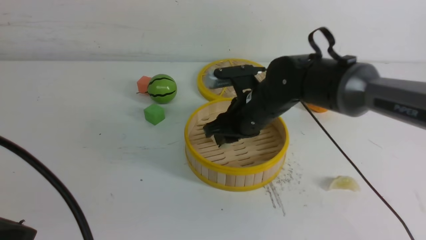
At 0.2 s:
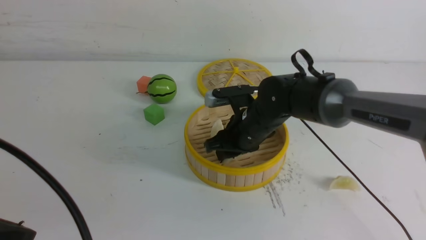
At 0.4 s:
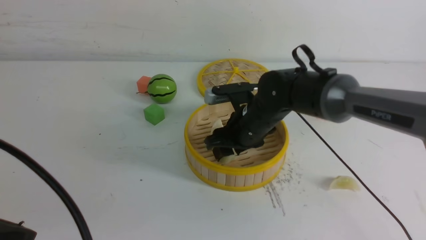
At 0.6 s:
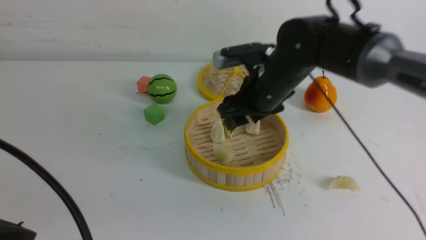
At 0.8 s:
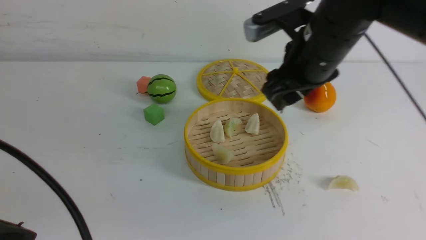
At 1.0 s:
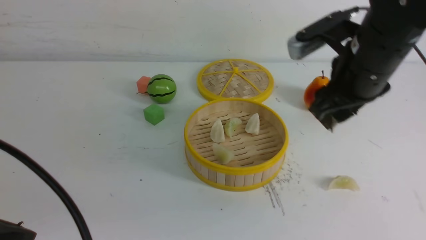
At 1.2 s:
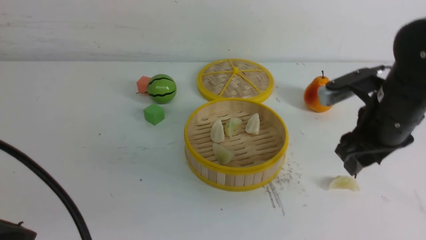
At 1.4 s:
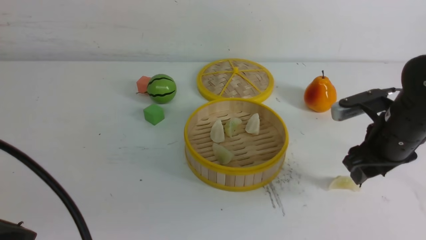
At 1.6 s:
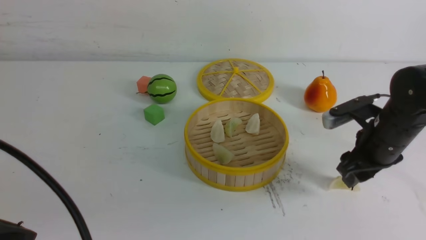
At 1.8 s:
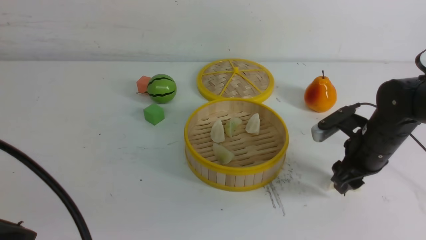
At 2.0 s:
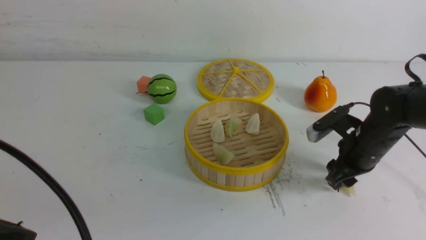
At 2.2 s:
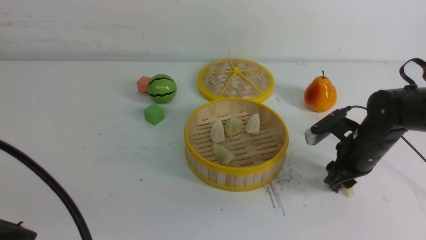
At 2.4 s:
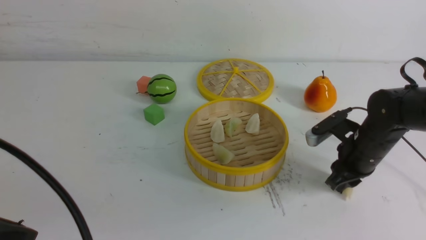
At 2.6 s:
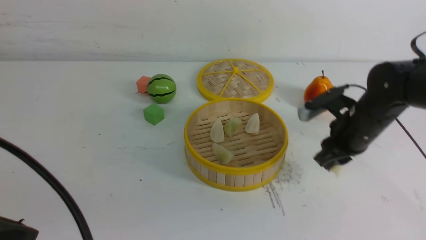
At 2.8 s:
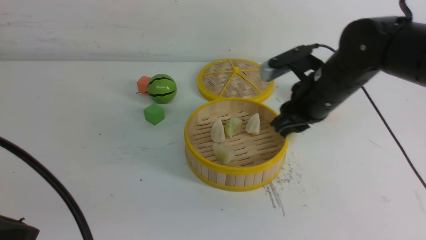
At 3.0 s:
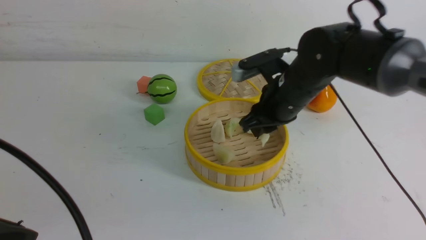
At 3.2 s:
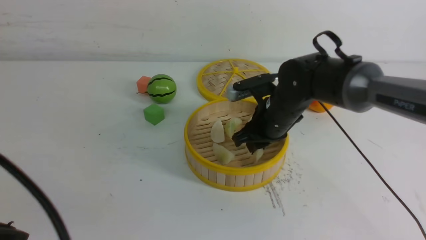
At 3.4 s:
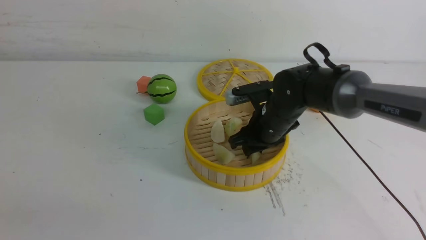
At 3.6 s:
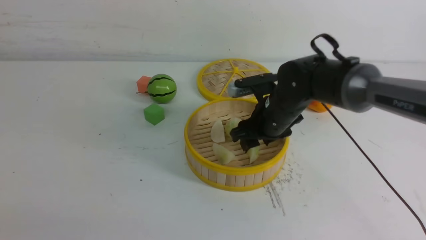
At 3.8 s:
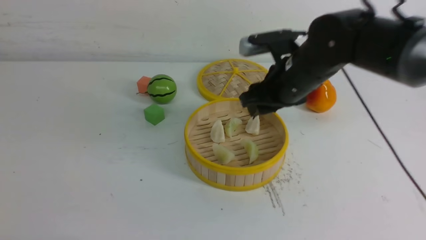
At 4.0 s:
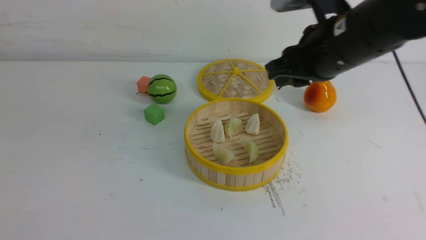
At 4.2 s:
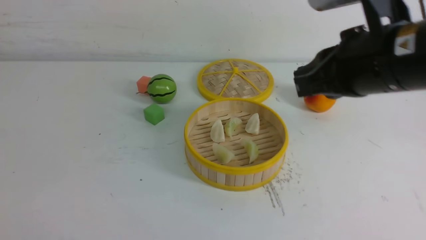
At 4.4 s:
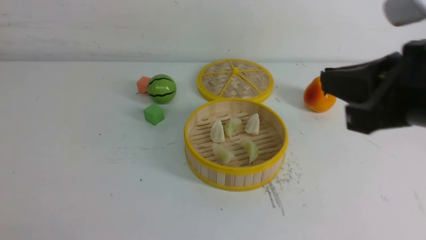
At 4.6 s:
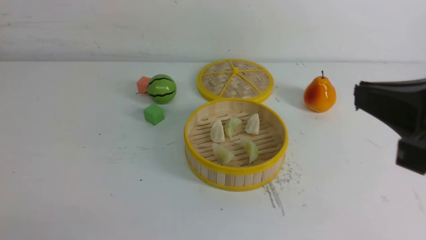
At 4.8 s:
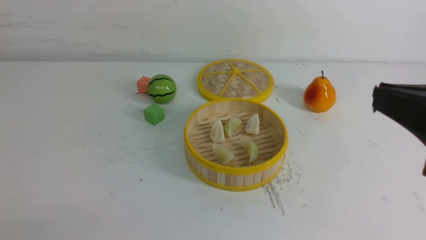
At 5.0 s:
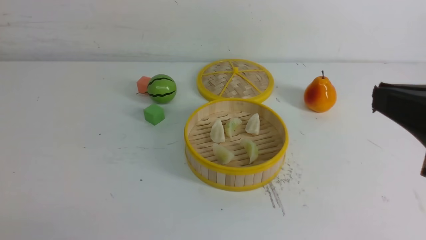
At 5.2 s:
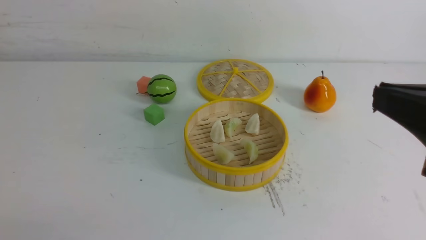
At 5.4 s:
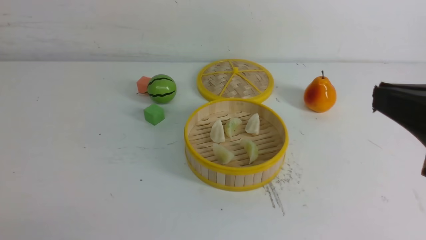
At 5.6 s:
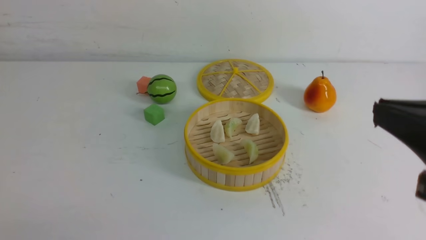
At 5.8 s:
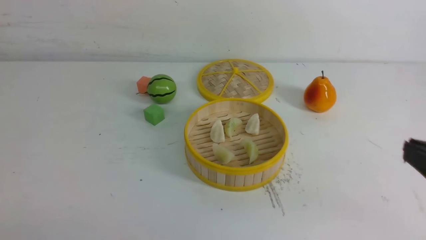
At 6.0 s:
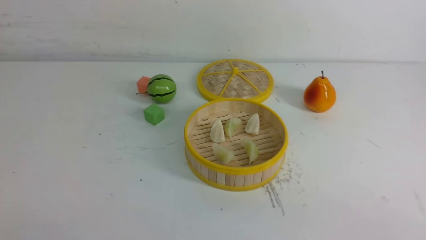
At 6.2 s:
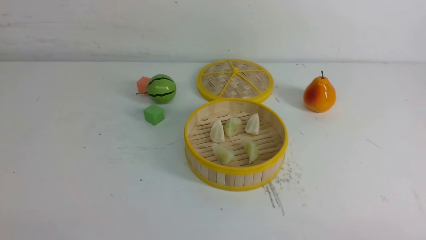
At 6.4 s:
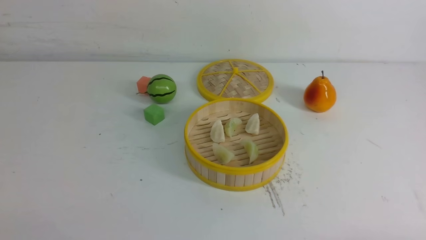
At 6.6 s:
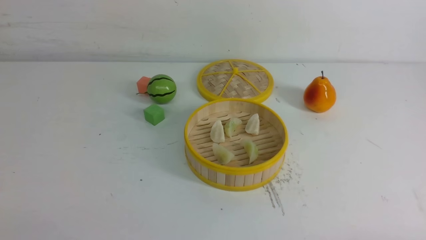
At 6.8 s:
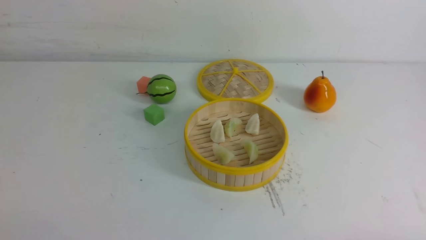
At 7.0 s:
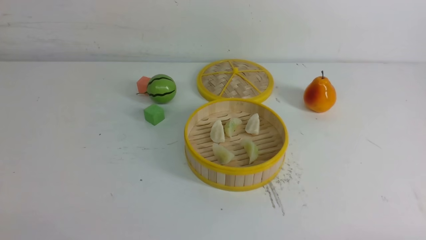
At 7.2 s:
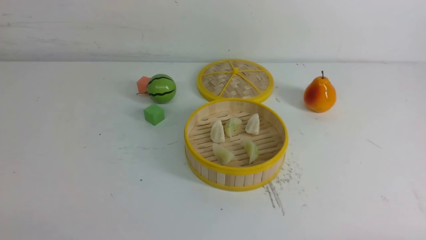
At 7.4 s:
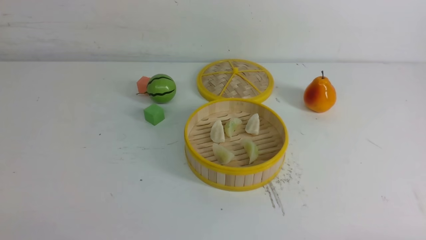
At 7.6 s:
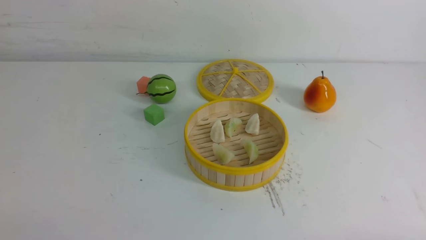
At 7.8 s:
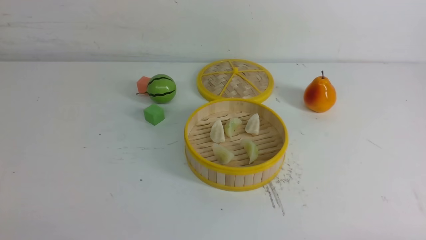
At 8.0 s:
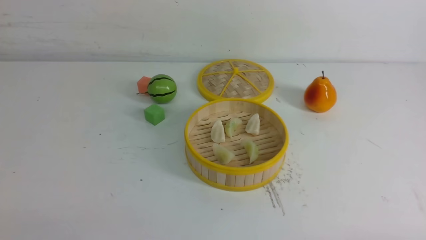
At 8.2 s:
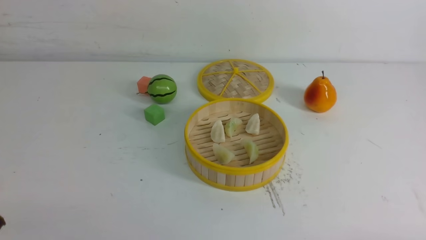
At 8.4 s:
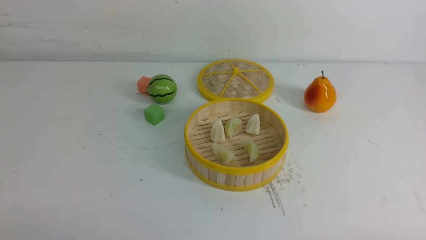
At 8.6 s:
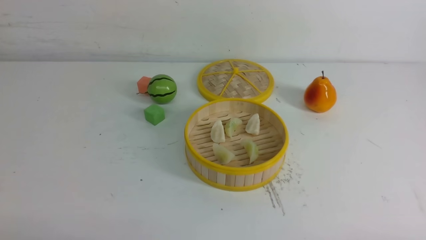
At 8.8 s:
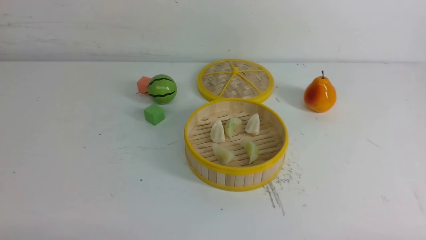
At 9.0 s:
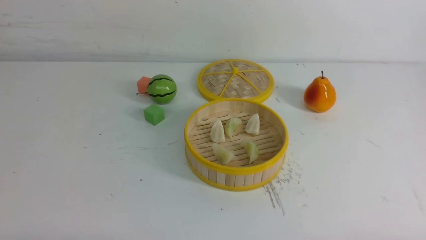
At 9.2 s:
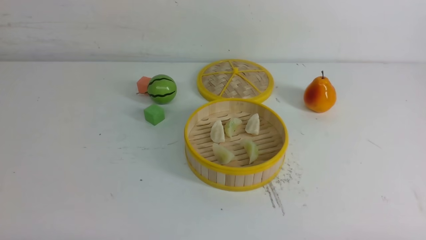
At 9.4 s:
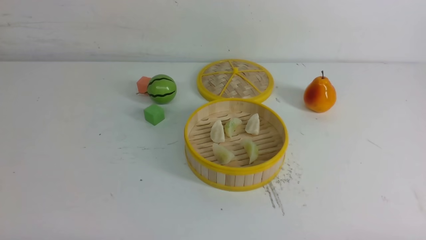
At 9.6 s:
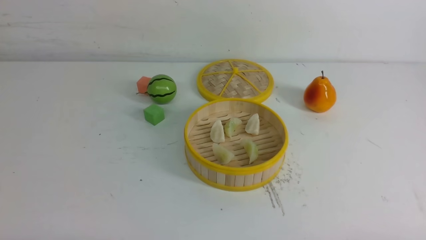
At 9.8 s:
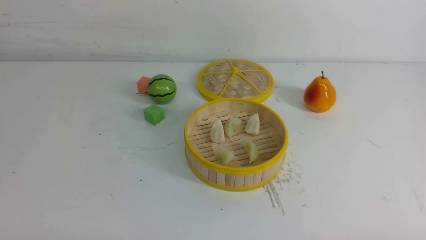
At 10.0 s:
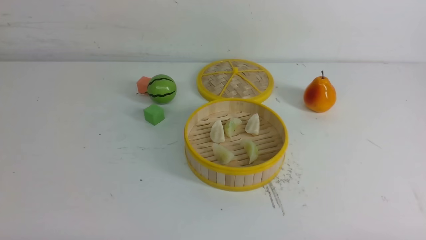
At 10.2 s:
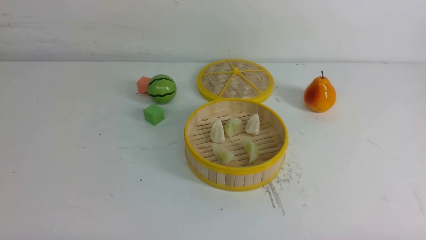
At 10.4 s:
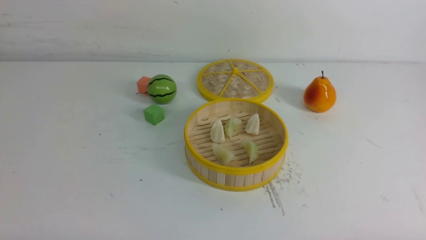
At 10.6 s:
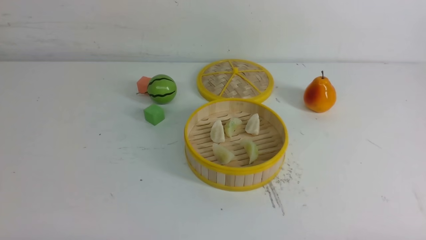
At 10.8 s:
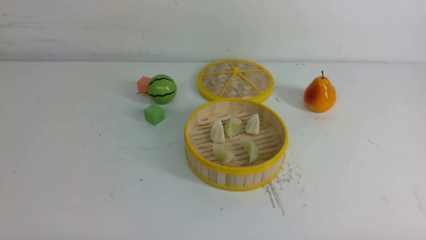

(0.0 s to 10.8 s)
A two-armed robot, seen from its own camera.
Task of the whole recording: put the dumplings into the steamer on the white table.
Step, 0.0 s - 0.6 s: use the right arm to put the dumpling into the steamer.
Step, 0.8 s - 2.4 s: use the right arm to grab a dumpling.
Step, 2.8 s - 3.6 s: use the right arm to put the dumpling into the steamer.
0.0 s - 1.6 s: The right gripper is displaced to the right by approximately 20 cm, and opens up.
1.6 s - 3.0 s: The right gripper goes some 15 cm to the left, and closes up.
3.0 s - 4.6 s: The left gripper shifts approximately 15 cm backward, downward and to the left. Meanwhile the right gripper is displaced backward and upward by approximately 30 cm, and closes.
4.6 s - 6.2 s: The right gripper moves downward, to the right and backward, some 25 cm.
9.2 s - 10.8 s: Both grippers stay put.

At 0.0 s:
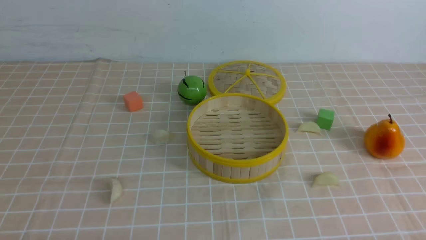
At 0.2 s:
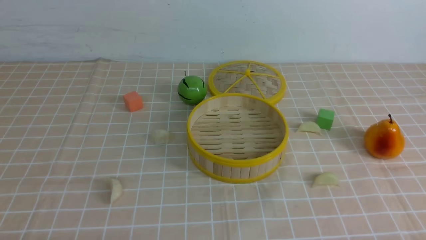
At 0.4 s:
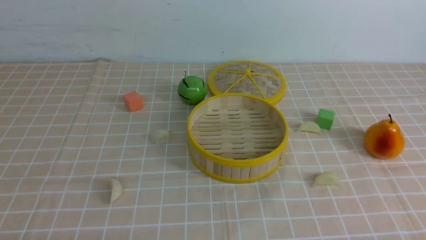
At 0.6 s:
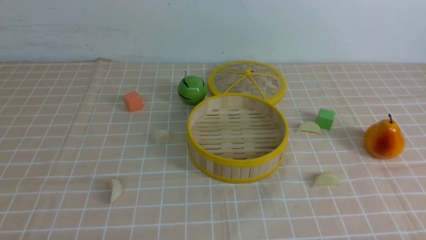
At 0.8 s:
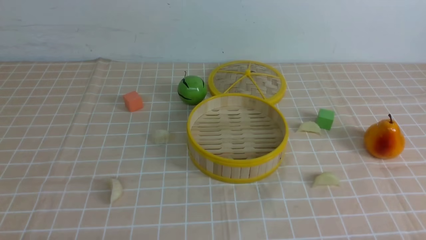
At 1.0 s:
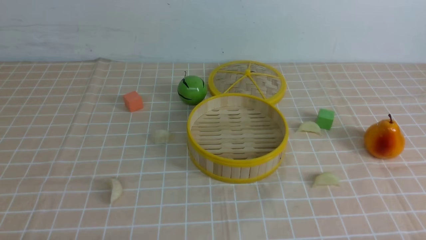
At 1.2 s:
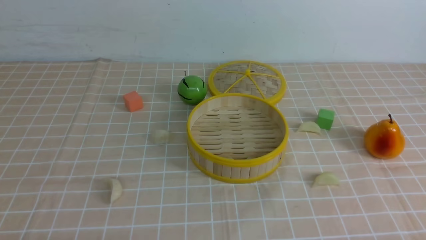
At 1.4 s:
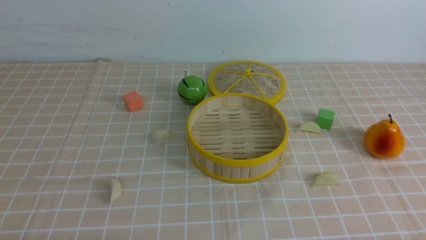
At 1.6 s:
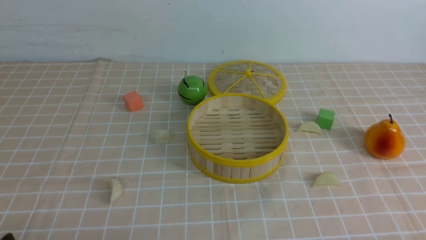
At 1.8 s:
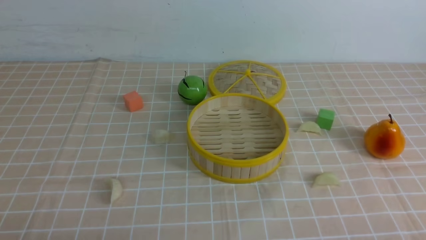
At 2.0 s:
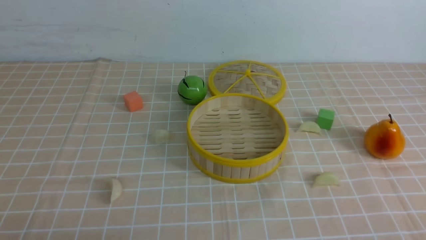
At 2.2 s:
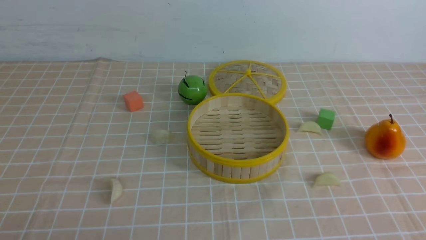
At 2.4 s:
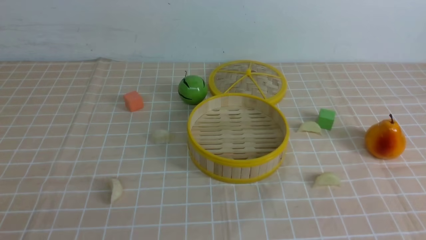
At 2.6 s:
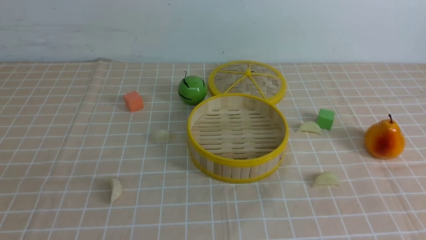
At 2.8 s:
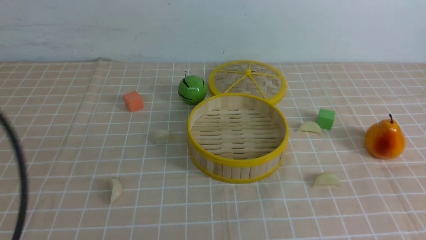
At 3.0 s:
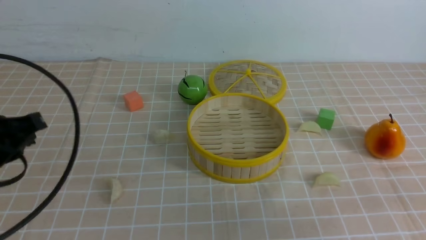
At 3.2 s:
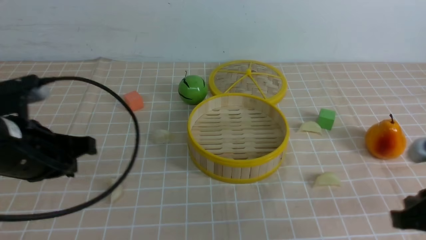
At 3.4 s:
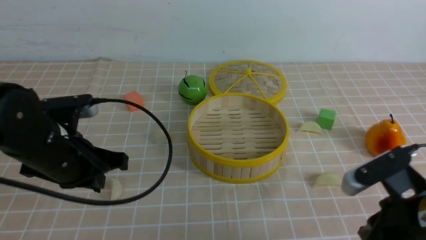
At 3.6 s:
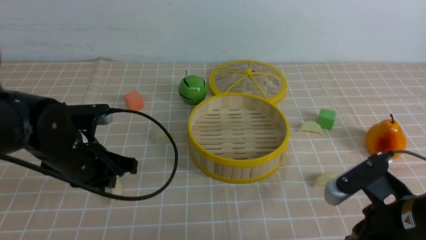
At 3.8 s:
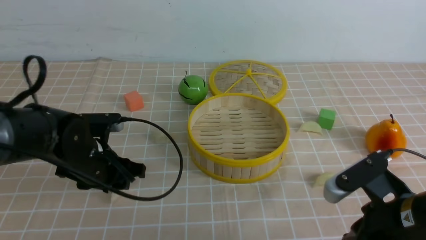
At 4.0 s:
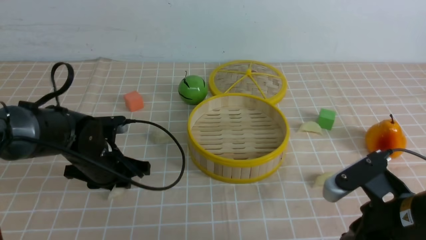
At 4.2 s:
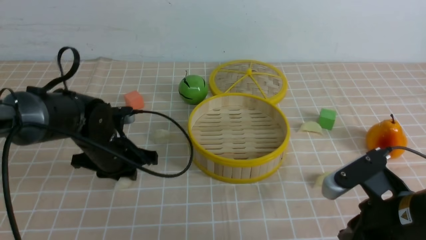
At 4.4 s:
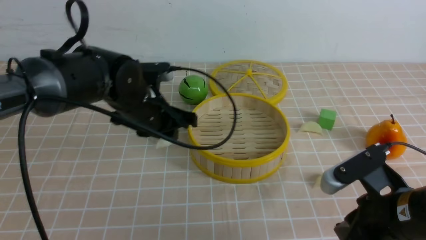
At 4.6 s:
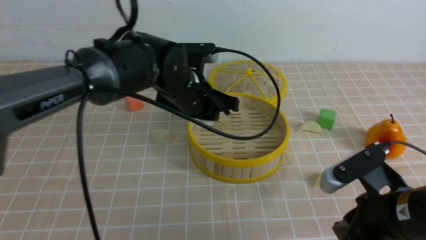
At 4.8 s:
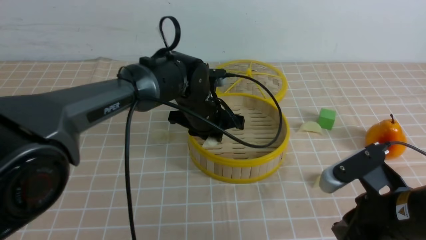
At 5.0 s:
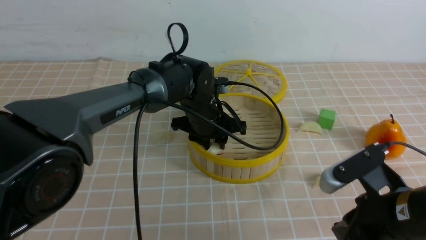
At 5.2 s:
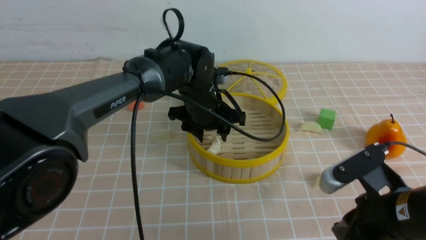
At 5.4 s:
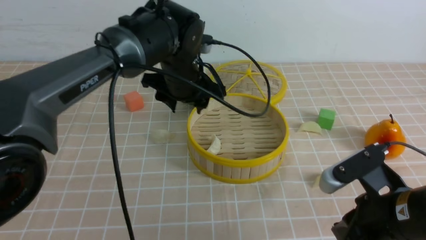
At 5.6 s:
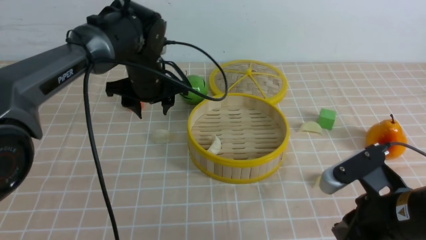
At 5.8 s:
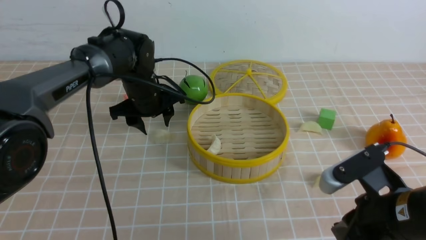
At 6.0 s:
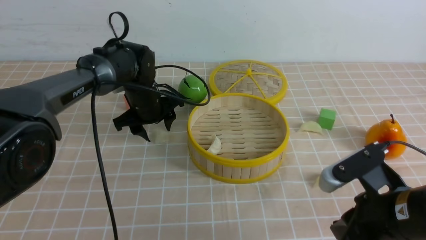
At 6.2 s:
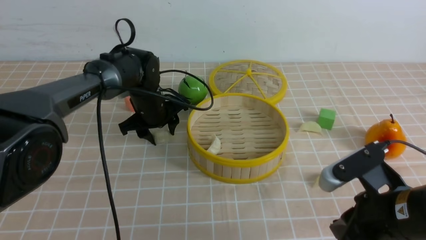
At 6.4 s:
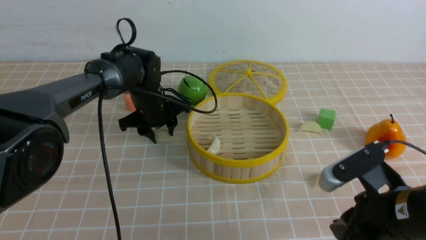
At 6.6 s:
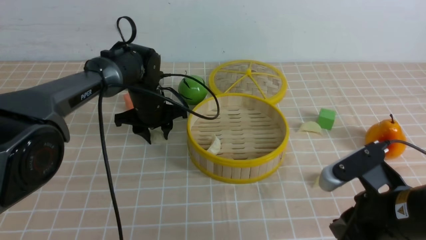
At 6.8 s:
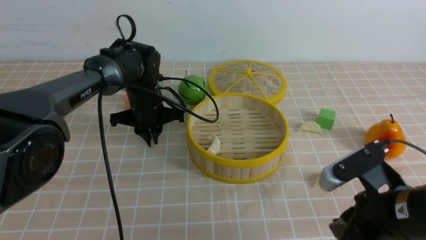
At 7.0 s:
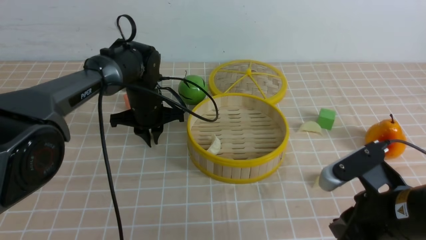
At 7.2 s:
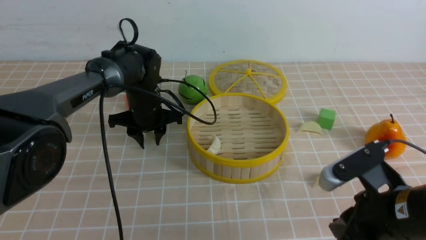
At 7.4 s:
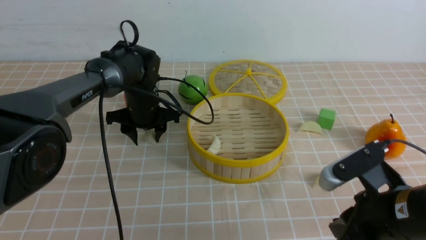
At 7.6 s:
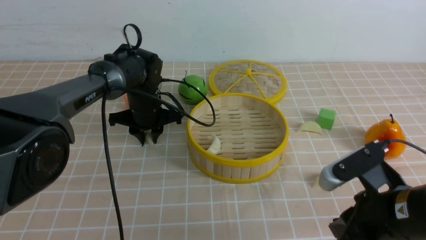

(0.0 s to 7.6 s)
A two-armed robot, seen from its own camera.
Task of the whole recording: put the dumplings into the steamer on the table with the brown tablecloth.
Step, 0.0 s - 4.0 s: use the left arm to grab a dumpling.
Step, 4.2 s - 5.0 s: use the left arm to put the dumpling into the steamer.
1.6 s - 3.0 s: Both grippers travel together forward and upward, some 15 cm. The left gripper closes up. Meanwhile the right gripper closes up.
3.0 s - 4.6 s: The right gripper shifts about 10 cm to the left. The left gripper goes some 30 cm to the right and forward, and opens its fingers.
4.6 s - 6.0 s: The left gripper goes approximately 10 cm forward, to the left and downward, and opens.
6.0 s - 7.6 s: The left gripper closes.
